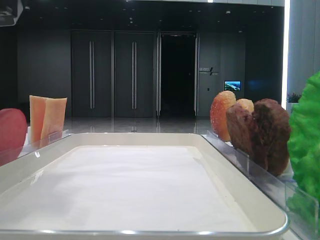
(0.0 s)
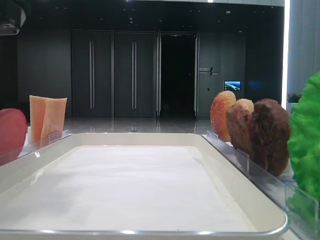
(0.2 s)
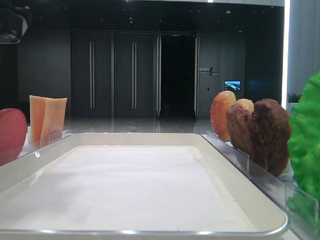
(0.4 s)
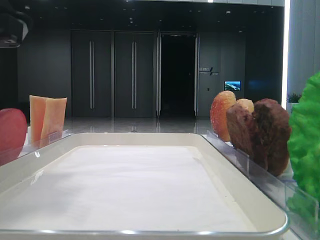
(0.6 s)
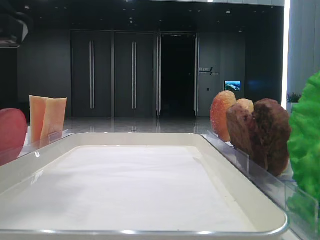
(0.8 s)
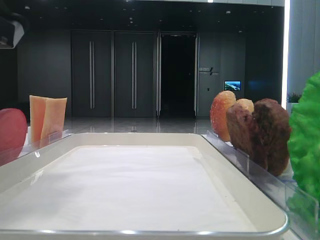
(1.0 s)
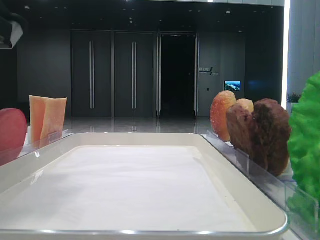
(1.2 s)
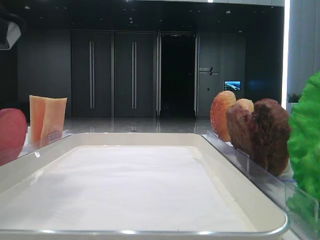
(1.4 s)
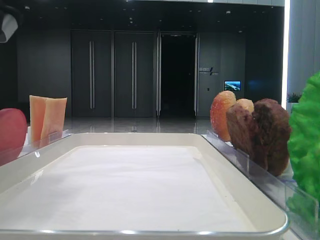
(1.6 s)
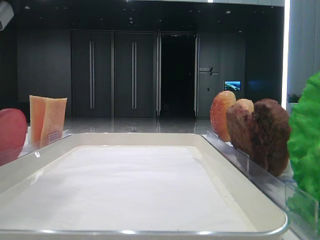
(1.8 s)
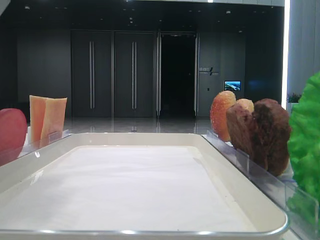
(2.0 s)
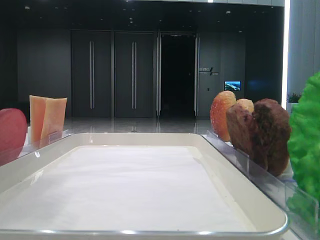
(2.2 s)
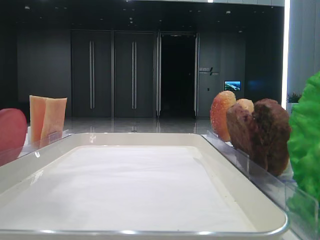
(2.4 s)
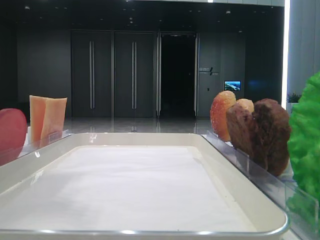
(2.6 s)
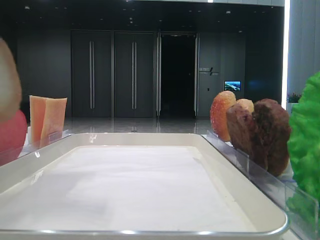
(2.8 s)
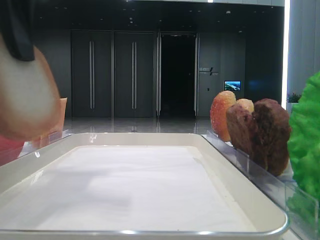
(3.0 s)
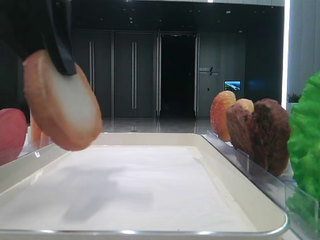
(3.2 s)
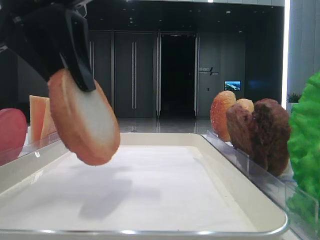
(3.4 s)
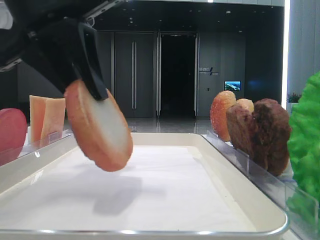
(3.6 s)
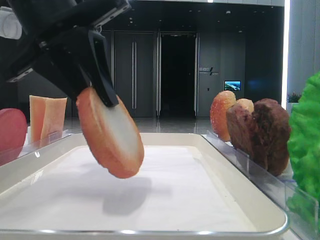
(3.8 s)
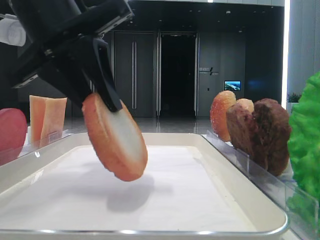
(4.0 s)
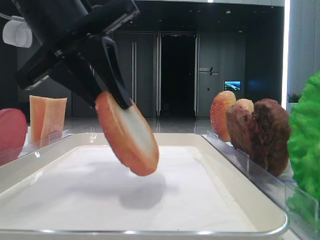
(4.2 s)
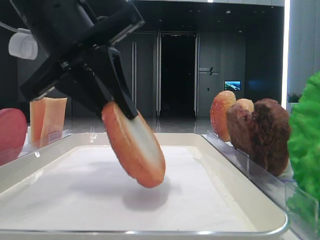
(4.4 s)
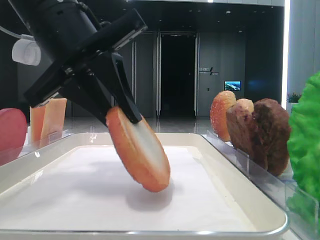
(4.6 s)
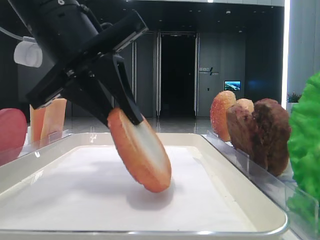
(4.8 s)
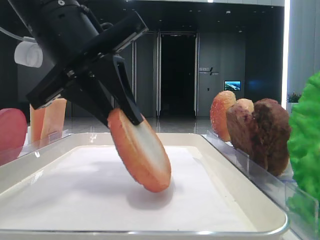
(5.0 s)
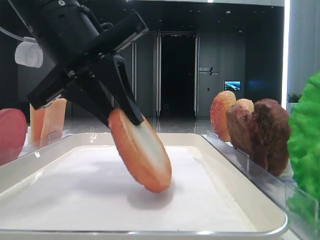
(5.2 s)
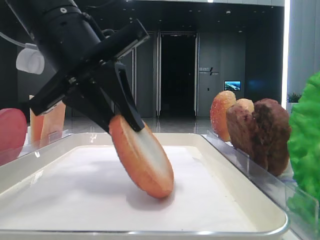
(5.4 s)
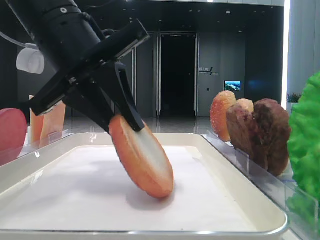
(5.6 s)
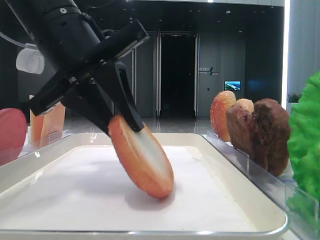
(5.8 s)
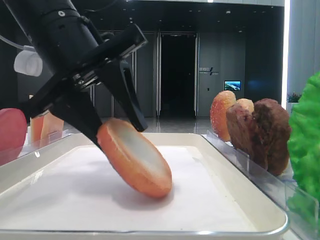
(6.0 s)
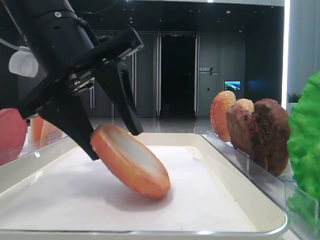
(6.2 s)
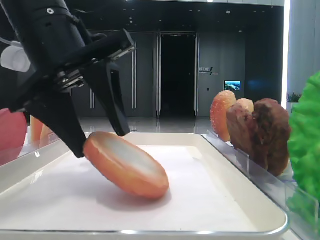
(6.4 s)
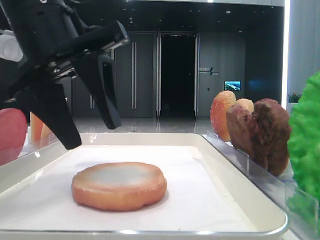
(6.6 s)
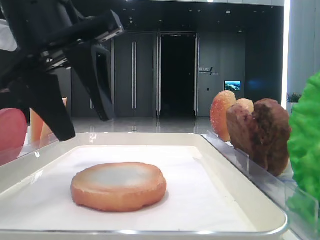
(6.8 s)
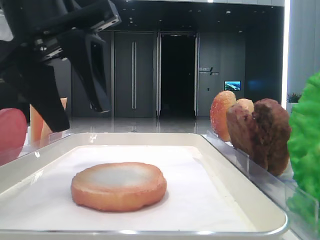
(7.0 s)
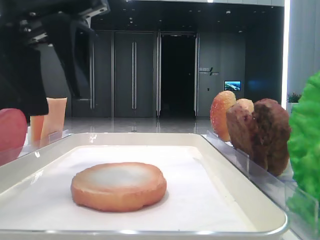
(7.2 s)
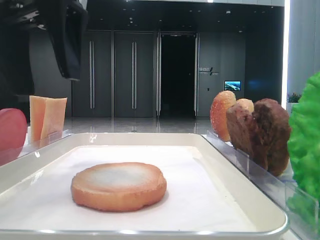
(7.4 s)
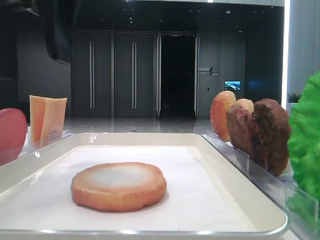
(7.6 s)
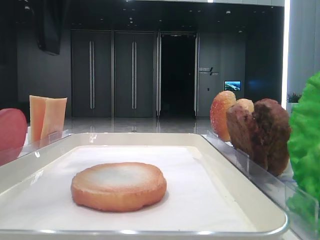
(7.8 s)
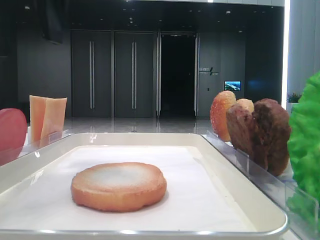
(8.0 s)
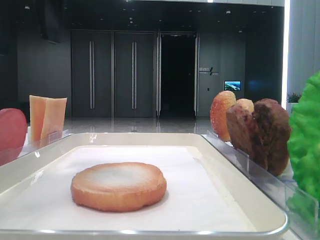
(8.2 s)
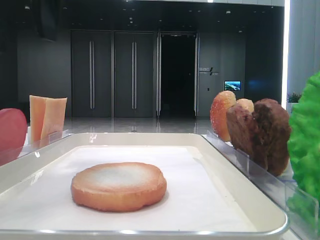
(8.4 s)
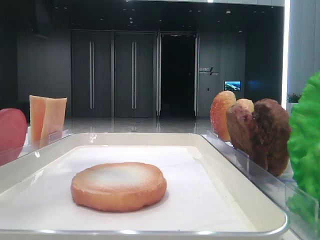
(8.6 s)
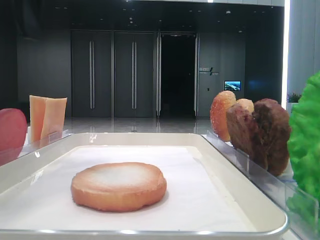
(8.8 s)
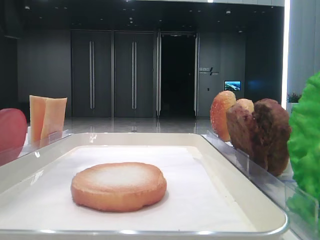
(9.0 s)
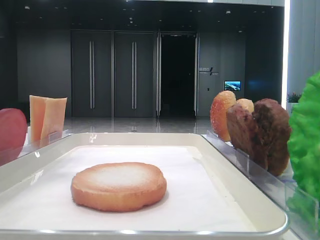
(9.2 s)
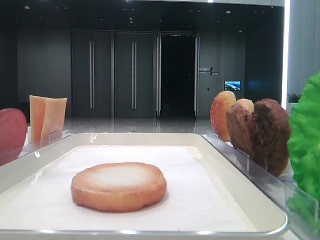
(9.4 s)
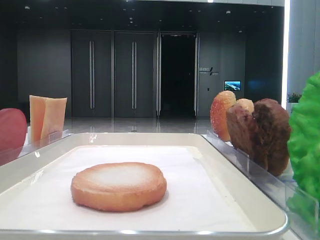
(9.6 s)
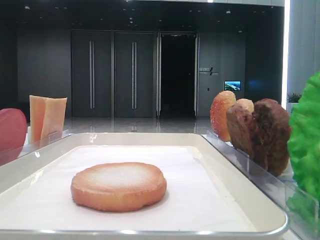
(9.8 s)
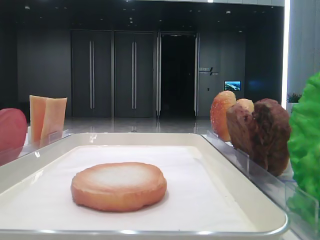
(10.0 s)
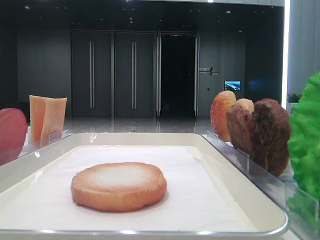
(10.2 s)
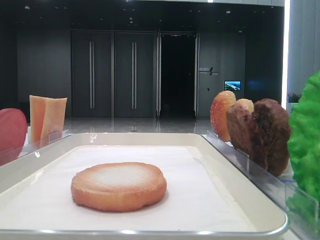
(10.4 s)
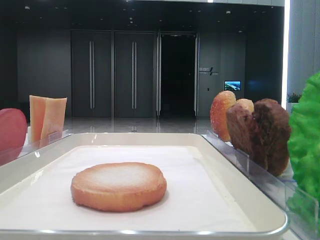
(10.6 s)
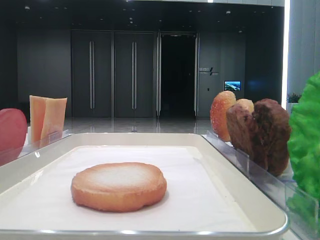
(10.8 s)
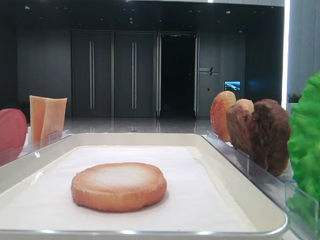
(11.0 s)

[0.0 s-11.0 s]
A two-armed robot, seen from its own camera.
Step, 0.0 to 6.4 s: Place the bread on the tray with the left hand.
1.6 to 3.2 s: The left gripper changes place by roughly 5 cm.
3.2 to 4.8 s: The left gripper goes approximately 5 cm downward.
4.8 to 6.2 s: The left gripper opens up.
6.2 to 7.8 s: The left gripper goes some 10 cm upward.
7.8 to 9.4 s: The left gripper shifts roughly 10 cm to the left.

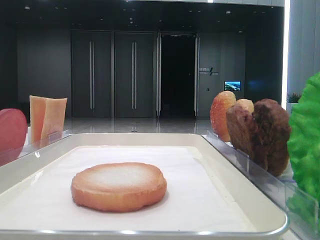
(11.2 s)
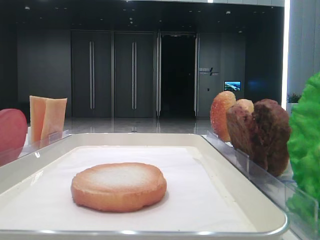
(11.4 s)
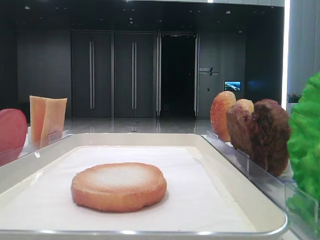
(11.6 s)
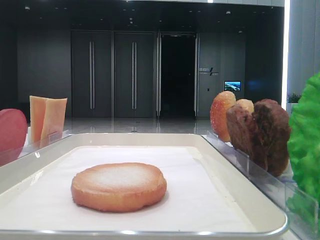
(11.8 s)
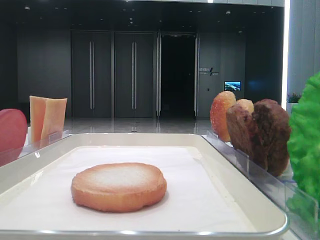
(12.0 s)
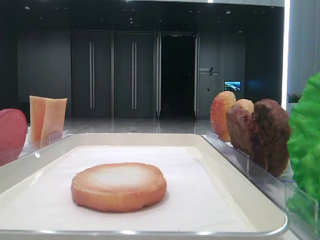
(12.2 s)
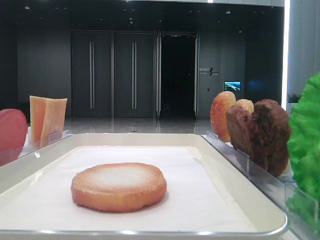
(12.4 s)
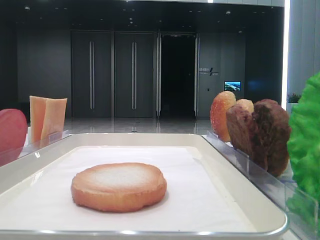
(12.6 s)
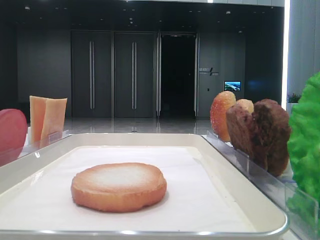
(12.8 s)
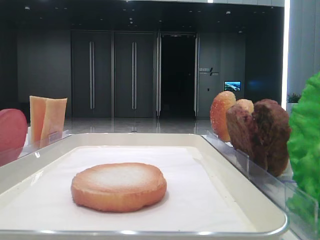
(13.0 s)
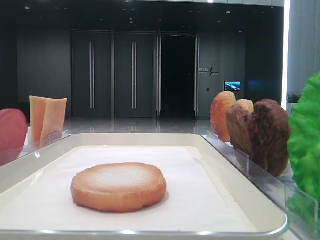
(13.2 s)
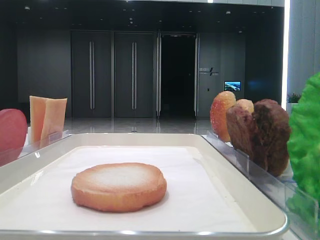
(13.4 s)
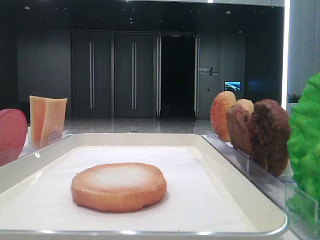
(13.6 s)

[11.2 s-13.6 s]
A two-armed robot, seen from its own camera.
12.4 to 13.6 s: The two grippers keep their place.

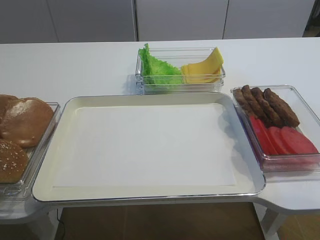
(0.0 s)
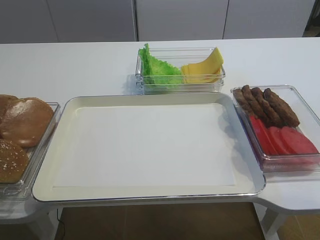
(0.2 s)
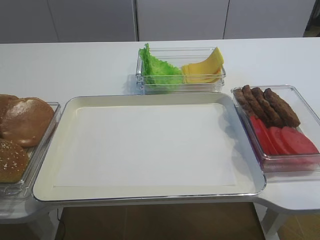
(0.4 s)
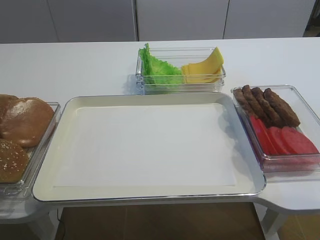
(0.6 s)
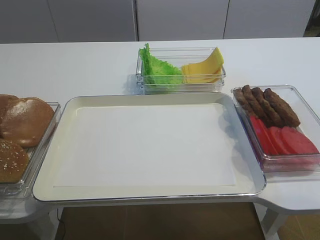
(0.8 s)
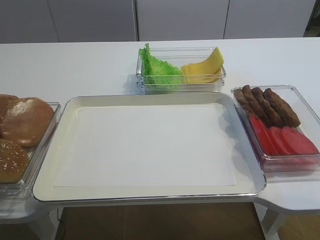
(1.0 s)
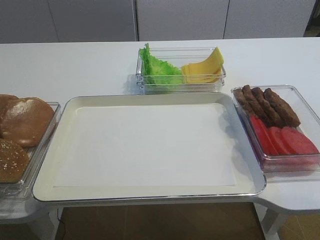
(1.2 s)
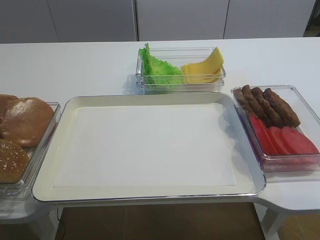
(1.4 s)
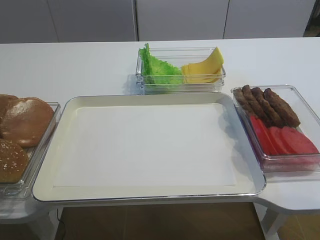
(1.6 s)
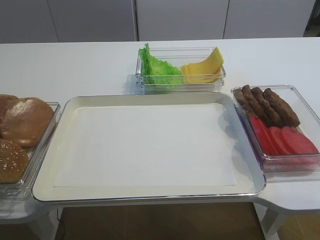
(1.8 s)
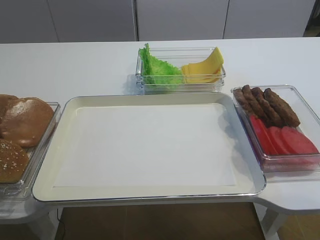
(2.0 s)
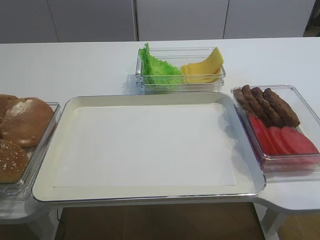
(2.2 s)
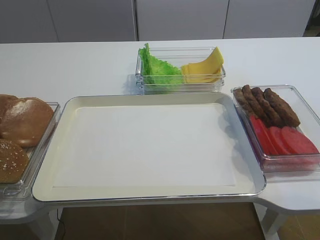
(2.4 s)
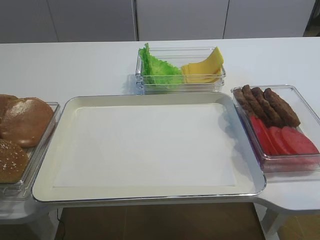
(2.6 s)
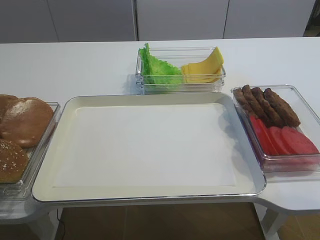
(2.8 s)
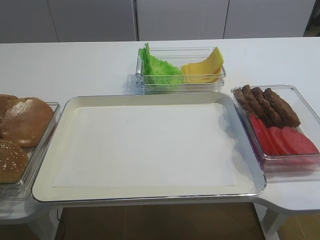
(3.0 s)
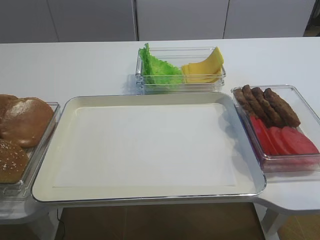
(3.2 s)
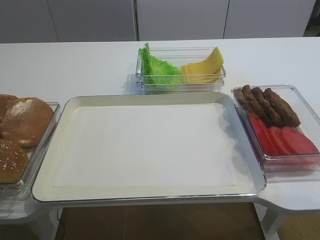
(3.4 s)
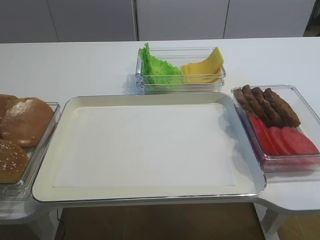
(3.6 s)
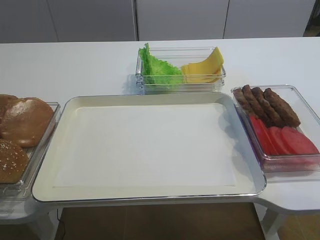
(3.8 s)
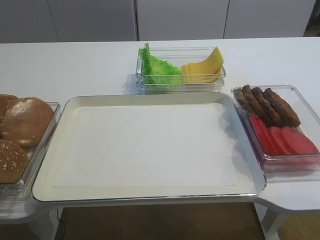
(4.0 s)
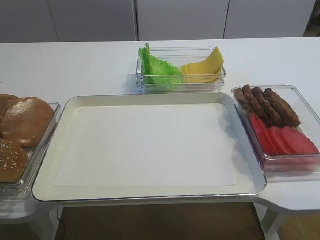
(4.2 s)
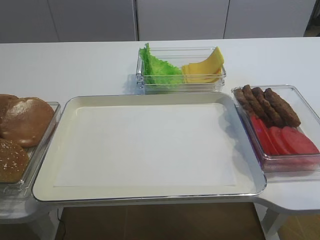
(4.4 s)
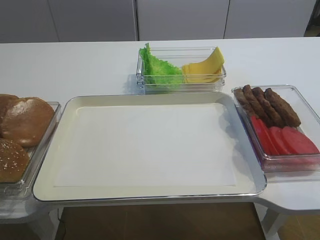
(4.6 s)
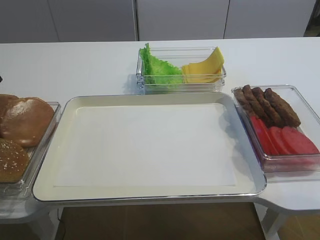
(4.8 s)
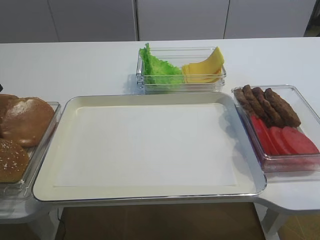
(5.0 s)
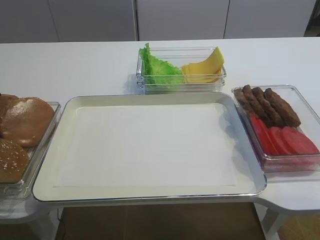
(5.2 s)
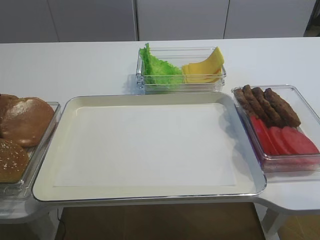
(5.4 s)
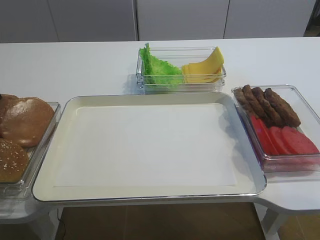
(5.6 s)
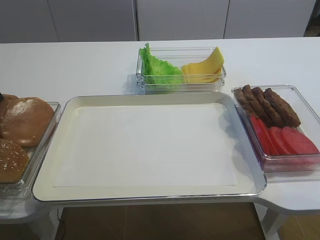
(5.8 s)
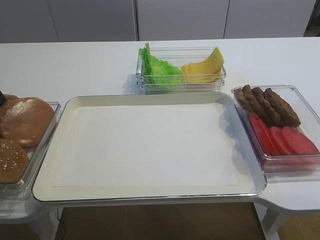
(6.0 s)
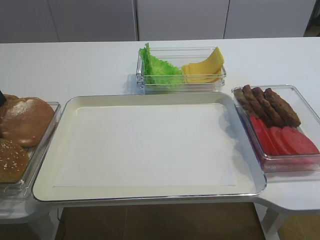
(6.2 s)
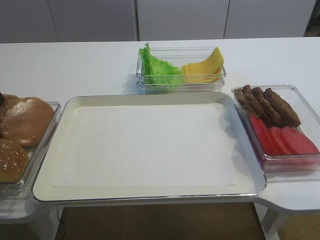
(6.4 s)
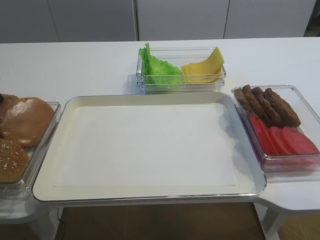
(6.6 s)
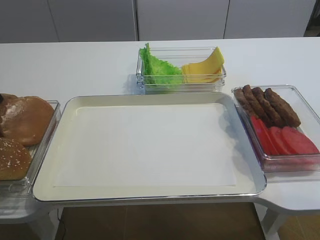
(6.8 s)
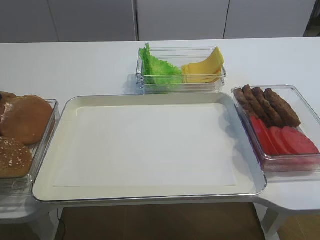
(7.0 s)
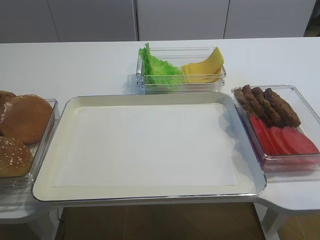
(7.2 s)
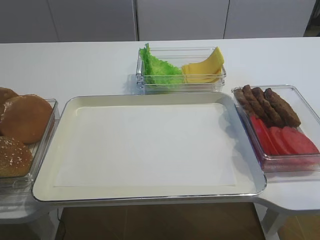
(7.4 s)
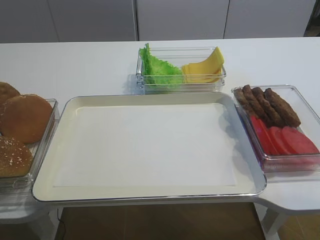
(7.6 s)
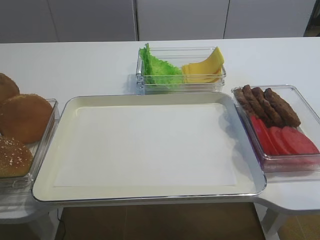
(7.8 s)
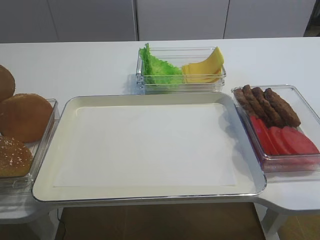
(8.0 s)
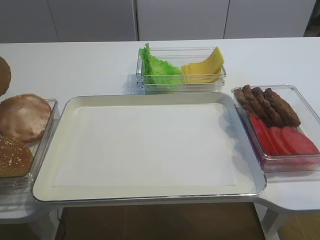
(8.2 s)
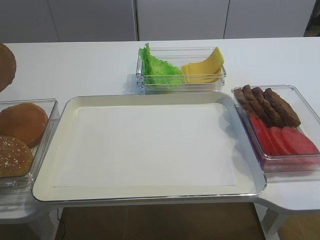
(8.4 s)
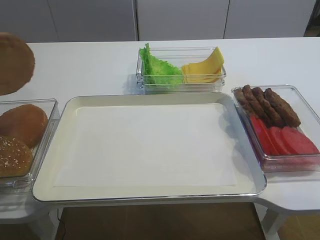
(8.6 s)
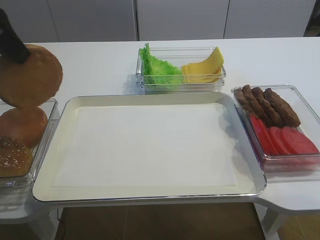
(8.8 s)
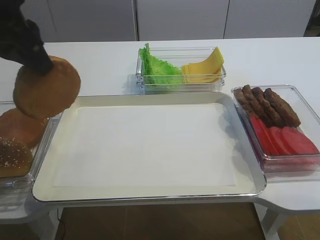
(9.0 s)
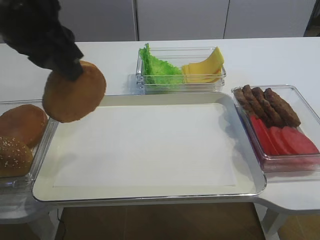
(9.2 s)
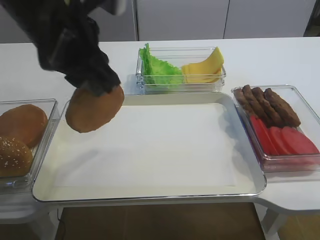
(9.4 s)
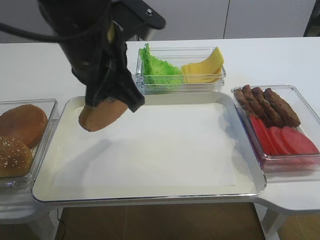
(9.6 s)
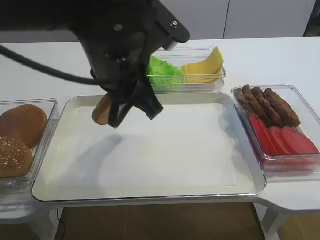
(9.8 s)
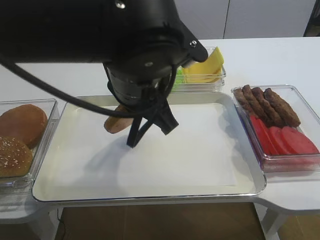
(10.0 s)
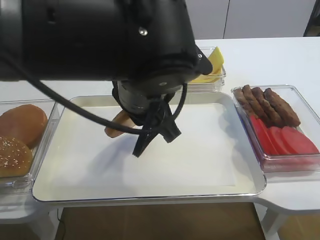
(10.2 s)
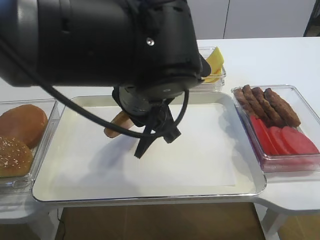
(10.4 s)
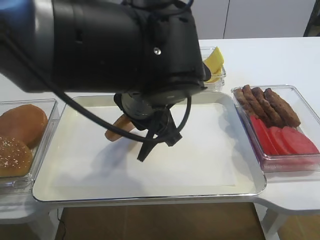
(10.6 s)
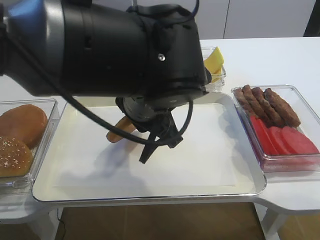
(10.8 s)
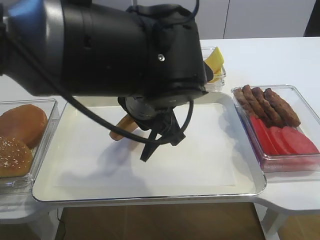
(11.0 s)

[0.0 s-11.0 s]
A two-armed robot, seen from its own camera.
6.2 to 7.8 s: The left gripper closes up.
7.8 to 9.4 s: The left gripper moves to the right, about 20 cm.
9.4 to 11.0 s: The left gripper goes approximately 15 cm to the right and downward.
